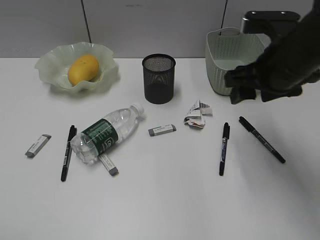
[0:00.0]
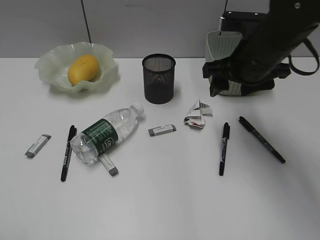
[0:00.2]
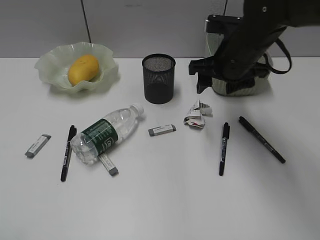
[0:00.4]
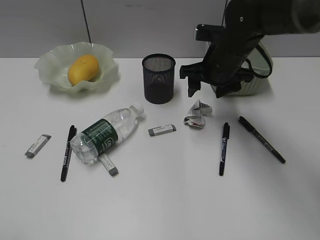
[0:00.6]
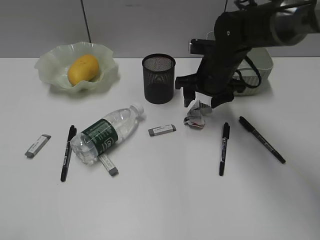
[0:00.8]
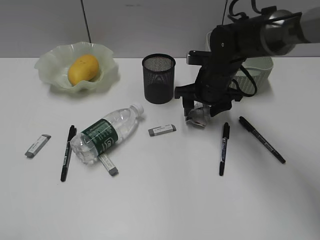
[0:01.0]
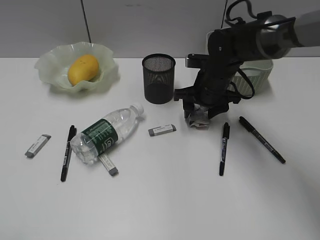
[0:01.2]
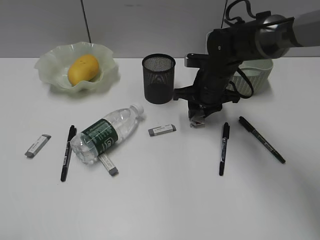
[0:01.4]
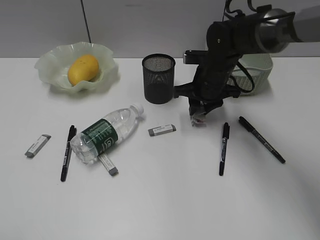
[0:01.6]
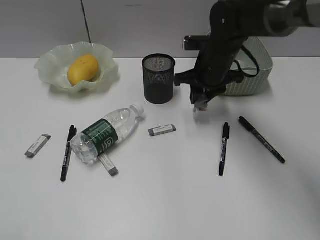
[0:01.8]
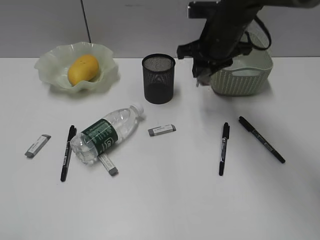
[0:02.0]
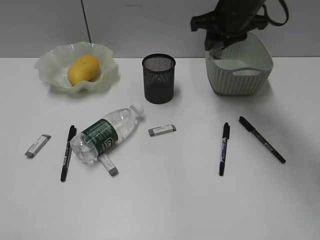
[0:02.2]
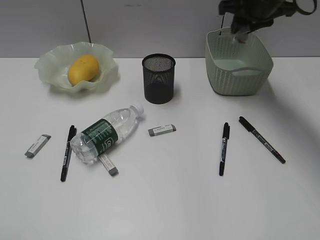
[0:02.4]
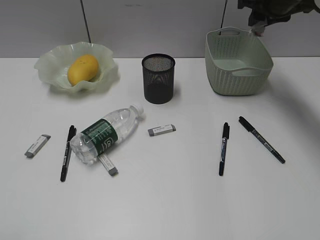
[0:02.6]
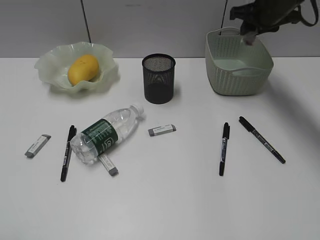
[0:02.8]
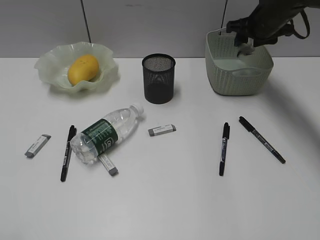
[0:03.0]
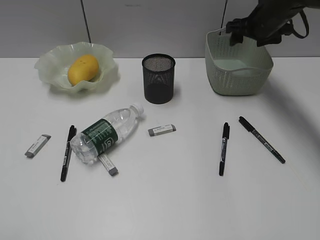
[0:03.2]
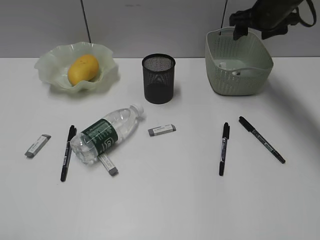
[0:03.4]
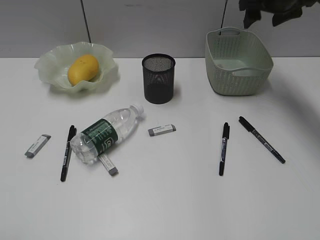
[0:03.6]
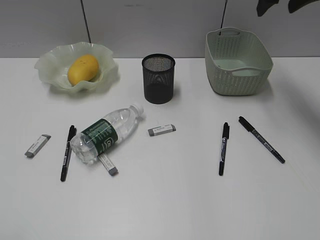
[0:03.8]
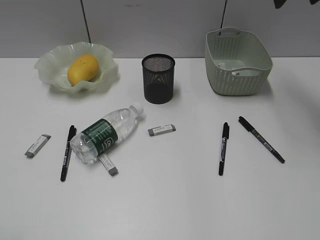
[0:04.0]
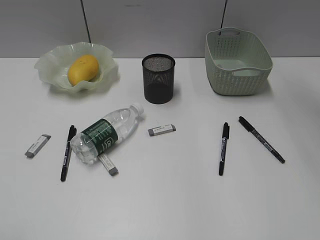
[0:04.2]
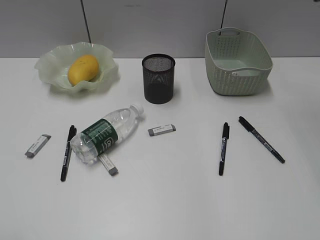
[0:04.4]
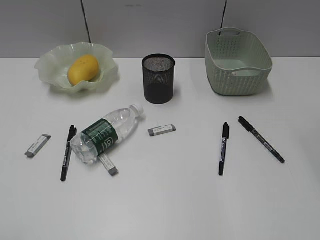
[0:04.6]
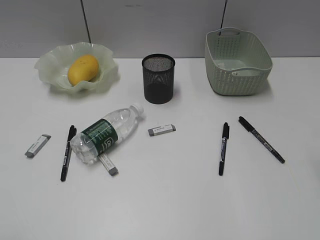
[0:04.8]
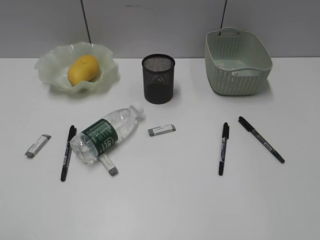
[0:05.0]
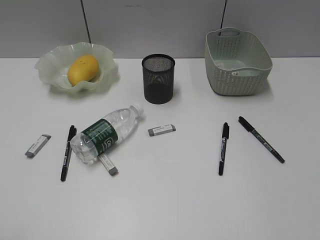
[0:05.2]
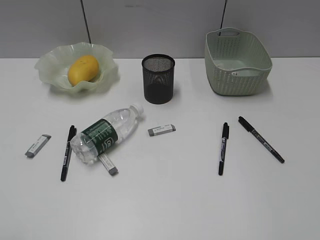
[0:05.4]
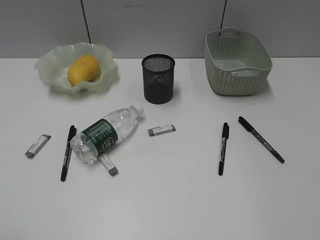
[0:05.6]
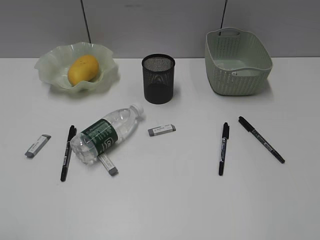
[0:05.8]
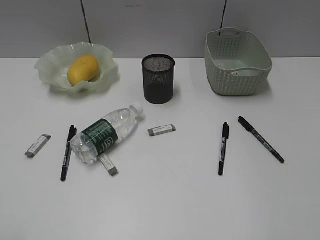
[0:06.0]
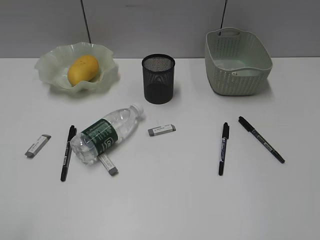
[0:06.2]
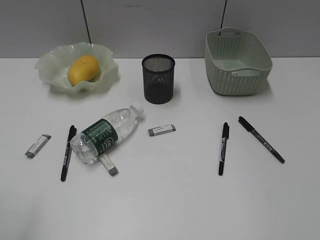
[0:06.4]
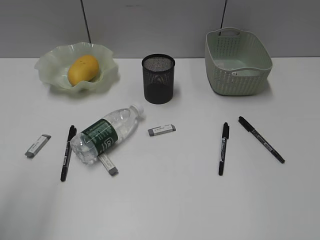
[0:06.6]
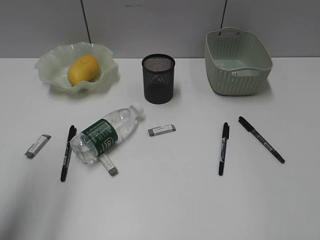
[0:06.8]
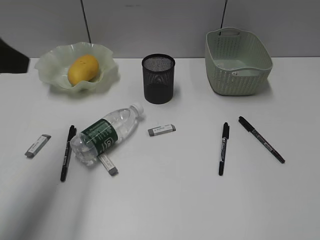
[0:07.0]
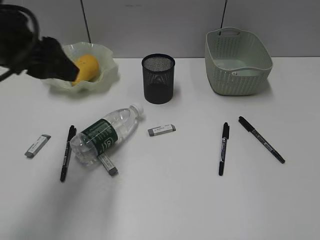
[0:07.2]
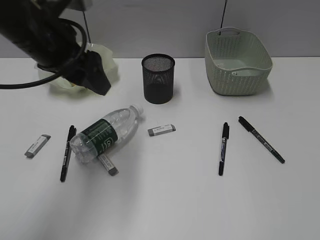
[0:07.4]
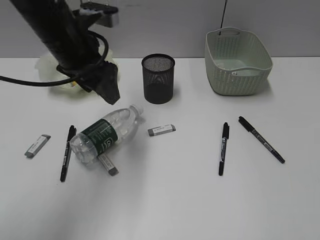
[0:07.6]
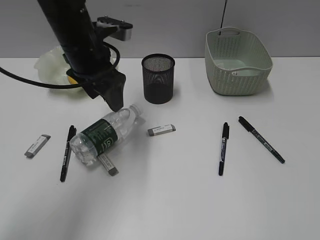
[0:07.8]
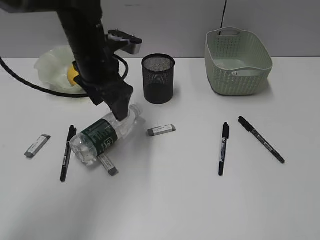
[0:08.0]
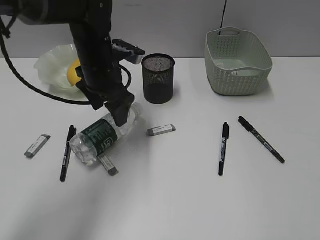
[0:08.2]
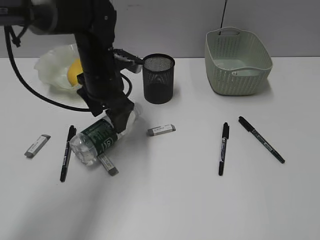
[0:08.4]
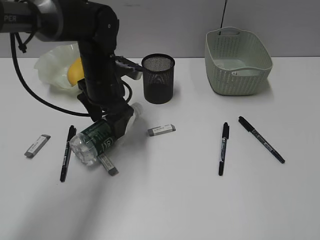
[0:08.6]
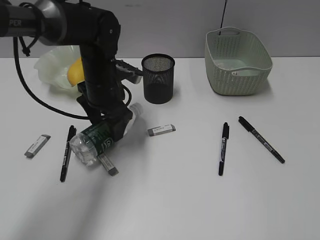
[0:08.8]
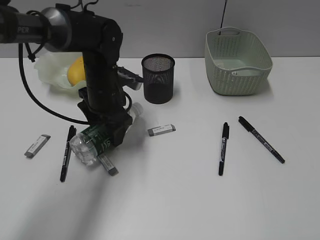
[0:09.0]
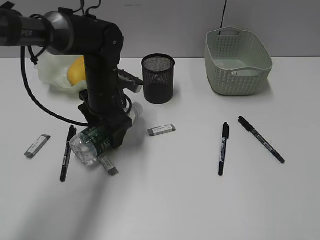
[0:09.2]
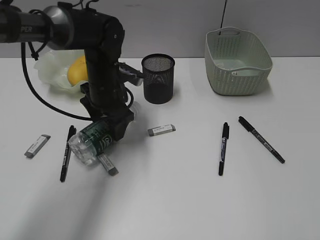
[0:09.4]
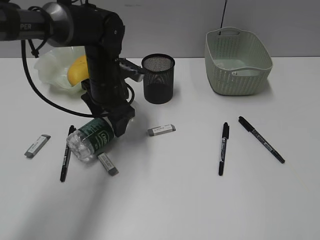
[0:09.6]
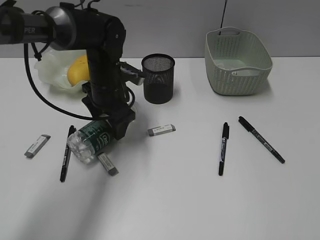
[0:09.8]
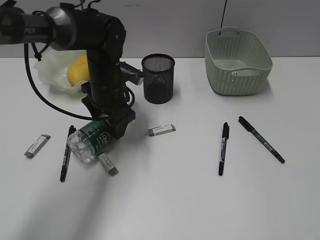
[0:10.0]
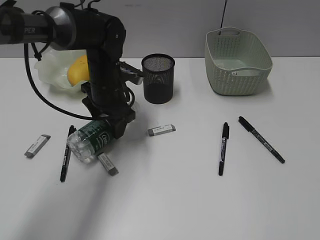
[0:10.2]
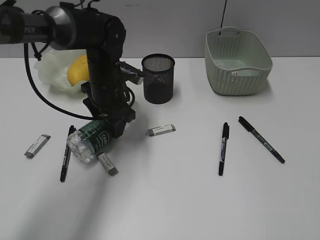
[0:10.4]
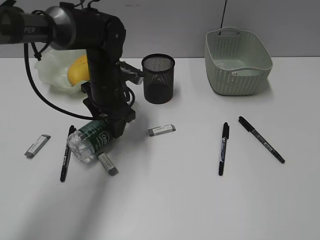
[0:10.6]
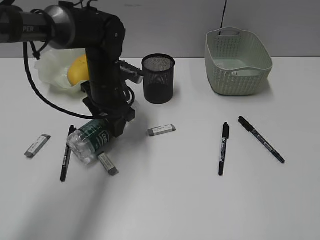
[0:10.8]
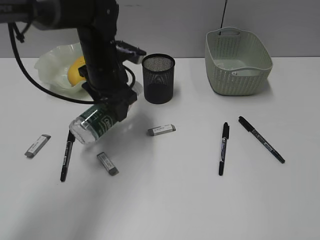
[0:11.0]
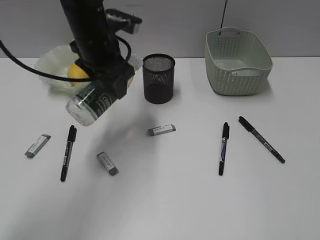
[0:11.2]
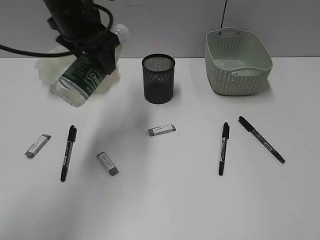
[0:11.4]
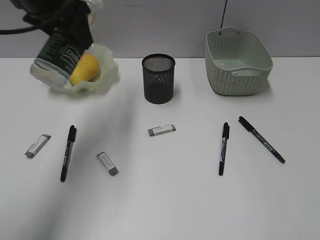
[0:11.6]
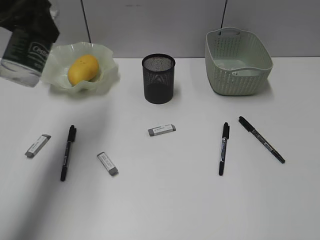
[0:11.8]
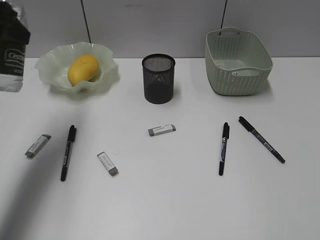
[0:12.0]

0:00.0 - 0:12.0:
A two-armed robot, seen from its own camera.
Step, 0:01.6 - 0:03.2: Place the waste paper in the basket with right gripper.
Step, 0:03.4 - 0:10.6: Grasp the bottle with left gripper.
0:00.0 - 0:01.6: The right gripper moves downward, forward and to the left, about 20 cm, and closes up.
0:01.6 - 0:03.0: The right gripper shifts some 15 cm to the right, upward and forward.
0:03.0 - 0:04.4: The right gripper travels upward and backward by about 25 cm, and opens its fingers.
0:06.0 - 0:07.6: The left gripper heads forward and to the right, covering approximately 40 cm.
0:07.6 - 0:09.0: The left gripper heads downward, covering roughly 10 cm.
0:09.0 - 0:10.4: Both grippers stay about where they are.
0:10.4 - 0:12.0: The left gripper travels upward, to the left and backward by about 25 cm.

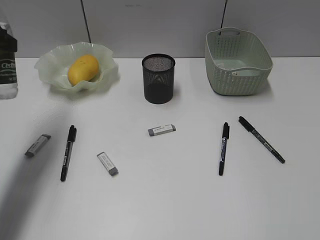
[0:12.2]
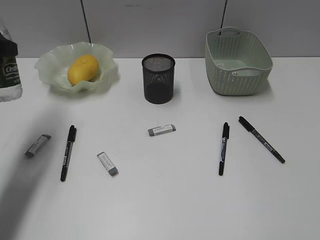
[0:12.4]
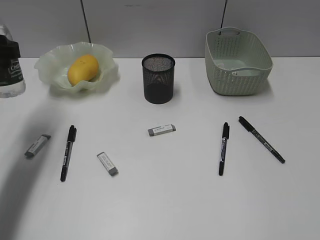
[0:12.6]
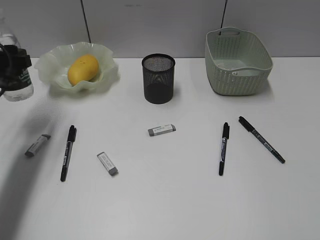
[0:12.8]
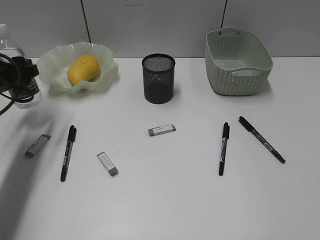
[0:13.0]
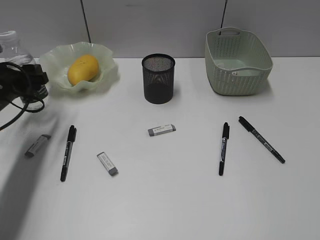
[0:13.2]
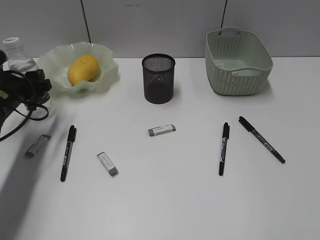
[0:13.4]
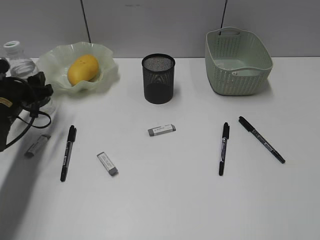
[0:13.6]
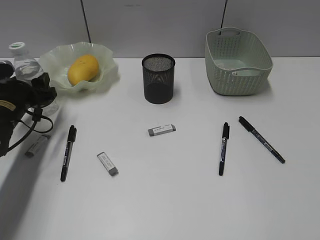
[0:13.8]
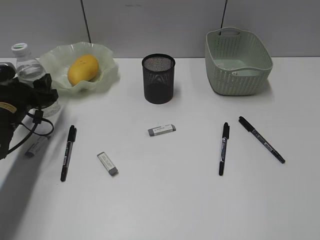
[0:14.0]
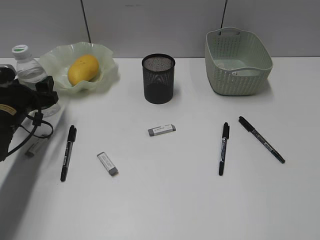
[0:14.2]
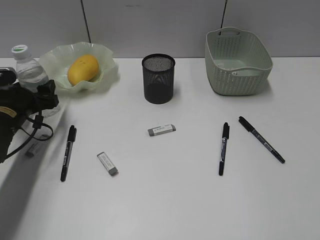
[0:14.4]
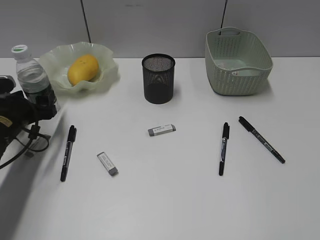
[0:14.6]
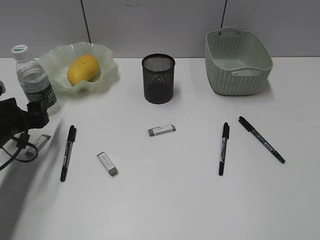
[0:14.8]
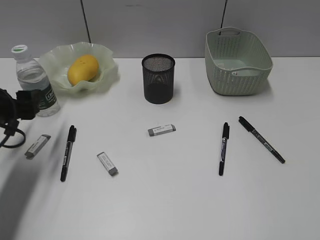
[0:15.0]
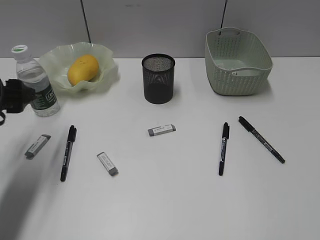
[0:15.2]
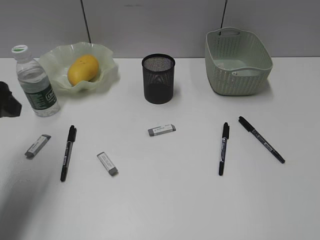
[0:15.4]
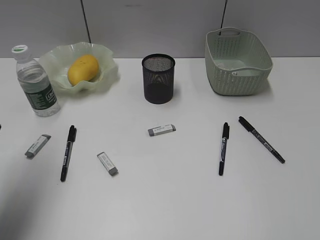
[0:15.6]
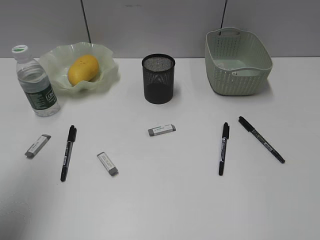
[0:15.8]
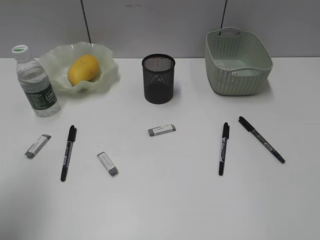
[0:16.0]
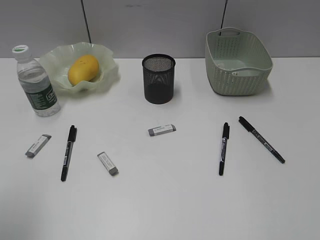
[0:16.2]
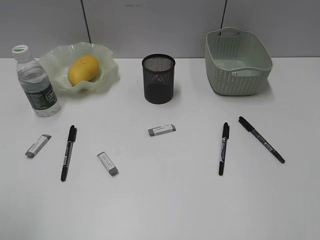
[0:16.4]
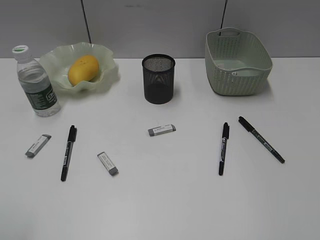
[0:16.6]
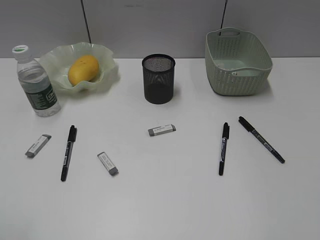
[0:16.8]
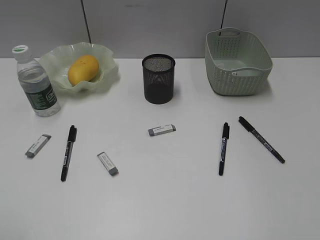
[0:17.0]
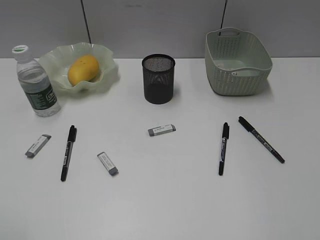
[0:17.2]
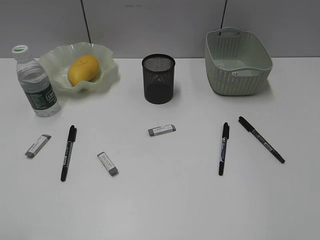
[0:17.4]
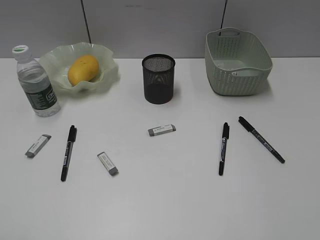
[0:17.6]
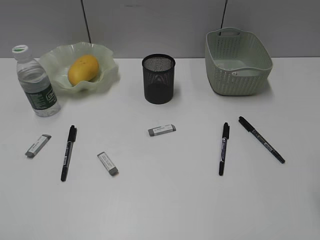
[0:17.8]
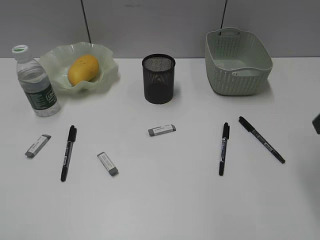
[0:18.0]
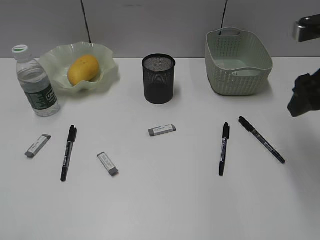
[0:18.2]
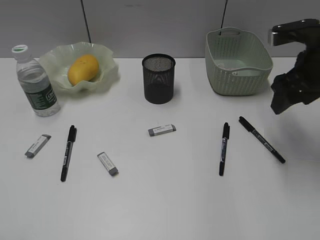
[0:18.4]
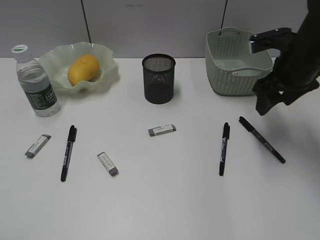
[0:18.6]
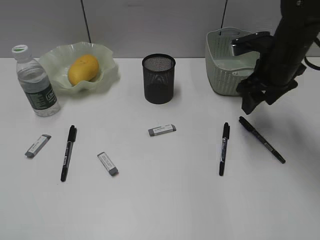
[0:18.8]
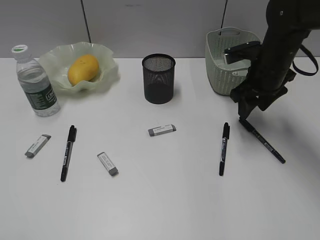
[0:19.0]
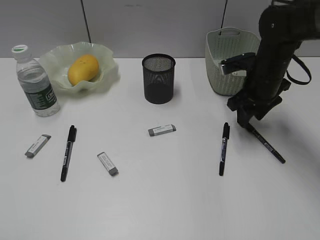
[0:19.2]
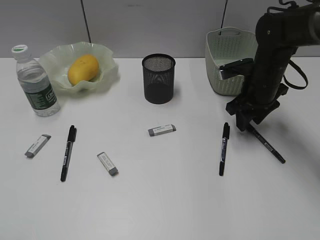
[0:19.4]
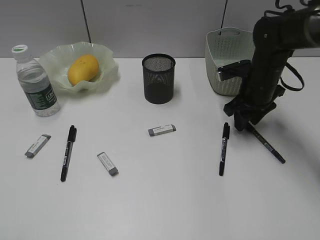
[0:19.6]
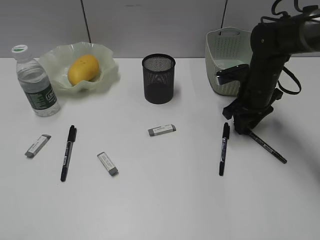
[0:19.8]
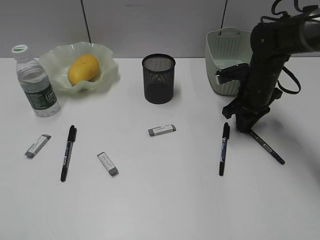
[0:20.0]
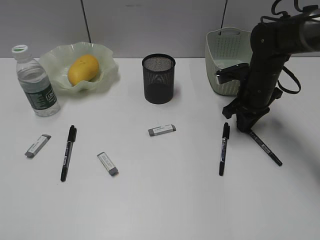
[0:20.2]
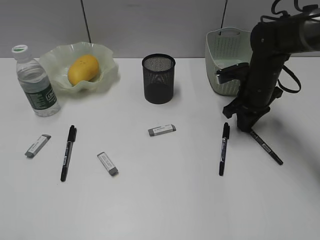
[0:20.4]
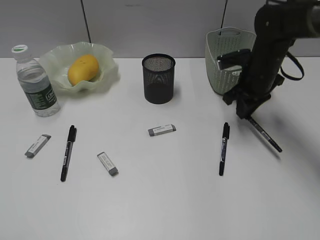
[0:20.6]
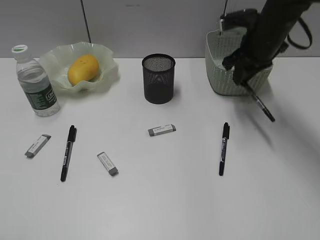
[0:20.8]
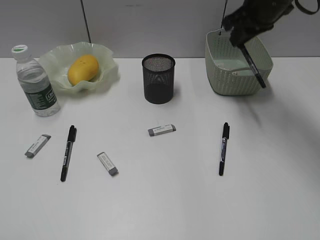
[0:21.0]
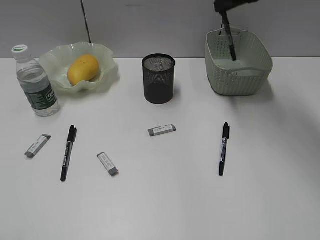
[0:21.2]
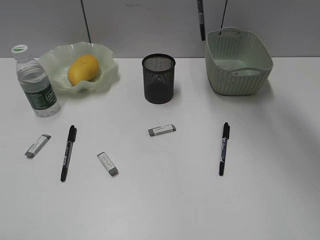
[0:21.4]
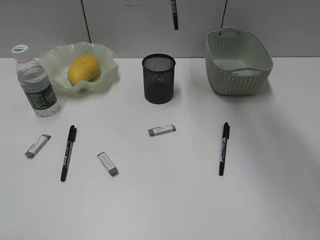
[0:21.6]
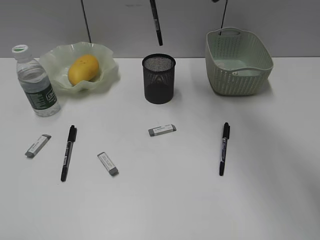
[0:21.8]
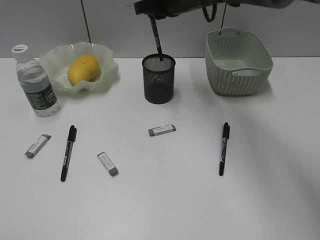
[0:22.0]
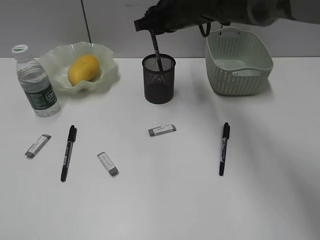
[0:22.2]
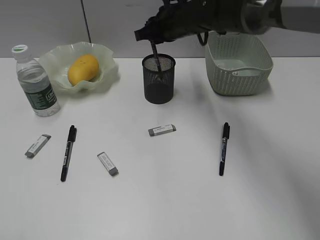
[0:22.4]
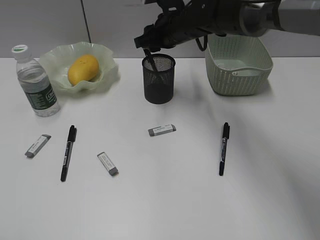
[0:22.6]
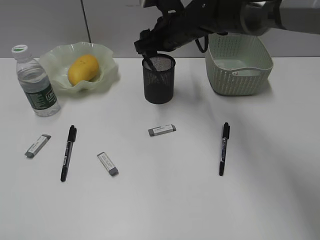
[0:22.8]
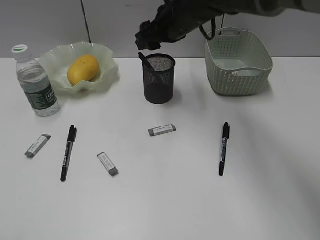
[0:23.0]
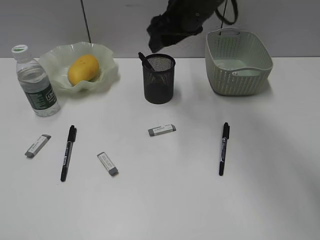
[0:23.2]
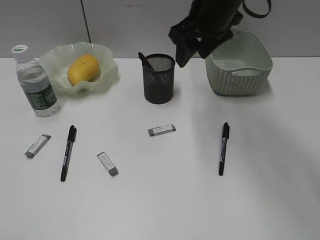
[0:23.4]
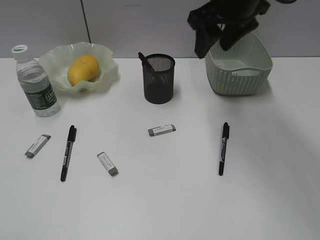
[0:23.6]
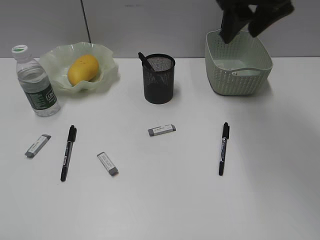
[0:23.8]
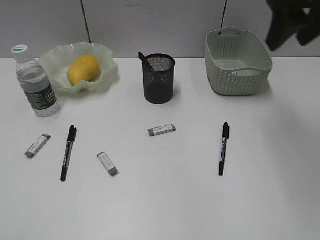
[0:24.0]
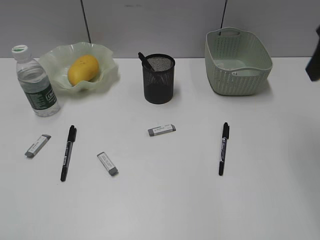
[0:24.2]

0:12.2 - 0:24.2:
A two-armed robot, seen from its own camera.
Step, 0:12.2 - 0:14.6: Stand the bottle with left gripper.
Step, 0:14.8 - 0:20.4: Grasp the black pen with right gripper.
Step, 0:20.6 - 0:23.0: Place the black pen in pen holder with right gripper.
0:12.2 - 0:13.8: The left gripper heads downward, covering approximately 20 cm.
0:13.8 - 0:15.2: The left gripper heads upward and backward, covering about 15 cm.
0:15.2 - 0:16.6: The left gripper travels backward and upward by about 25 cm.
0:16.6 - 0:18.2: The right gripper shifts approximately 25 cm forward.
0:18.2 - 0:19.8: The right gripper goes about 20 cm downward and forward, and closes its fingers.
0:19.8 - 0:21.2: The right gripper travels upward by some 20 cm, and closes up.
0:21.2 - 0:22.6: The right gripper is displaced to the left and downward by some 15 cm, and opens.
0:22.6 - 0:24.2: The right gripper is displaced backward, to the right and upward by about 30 cm, and opens.
